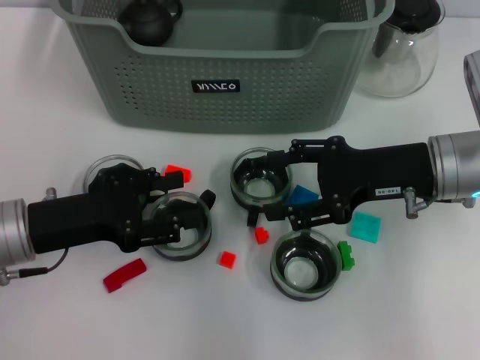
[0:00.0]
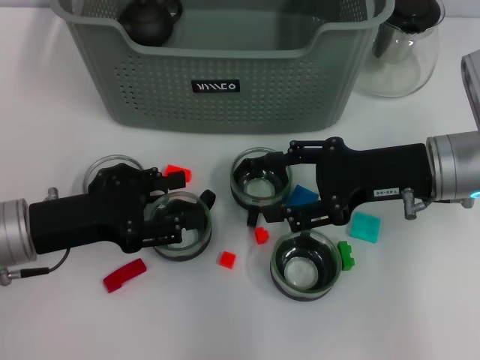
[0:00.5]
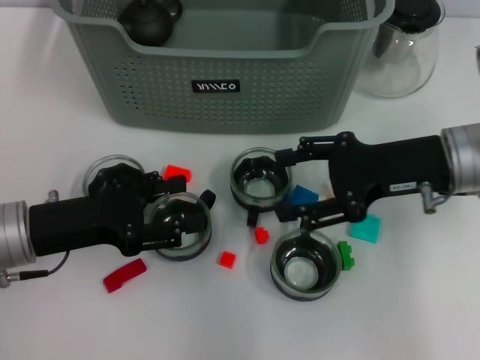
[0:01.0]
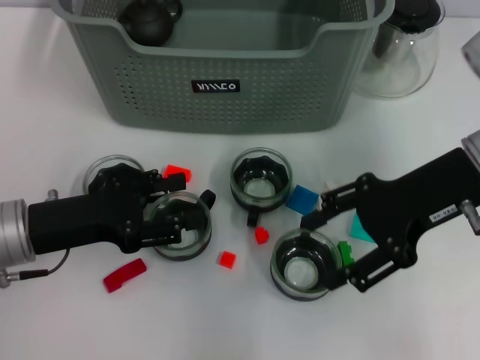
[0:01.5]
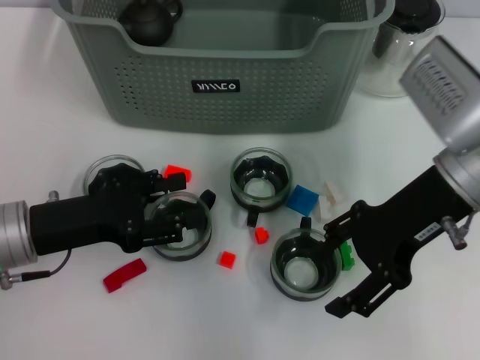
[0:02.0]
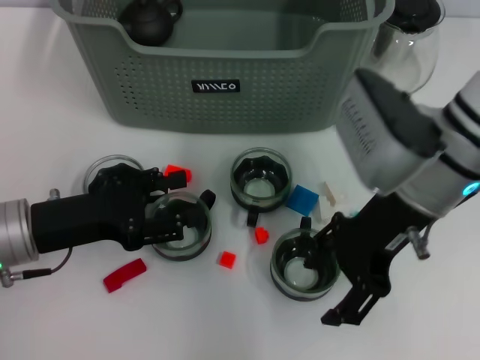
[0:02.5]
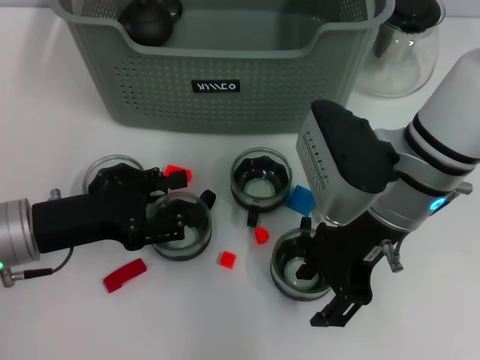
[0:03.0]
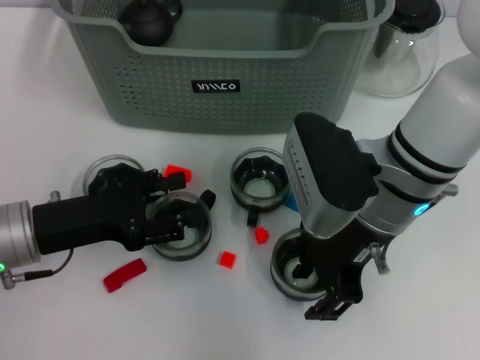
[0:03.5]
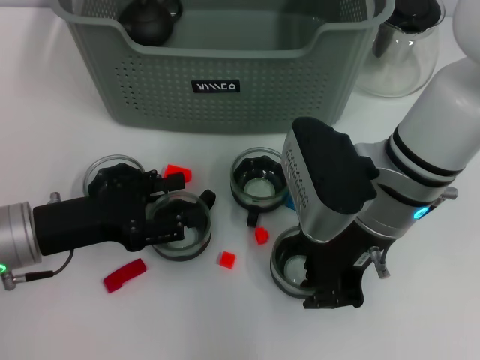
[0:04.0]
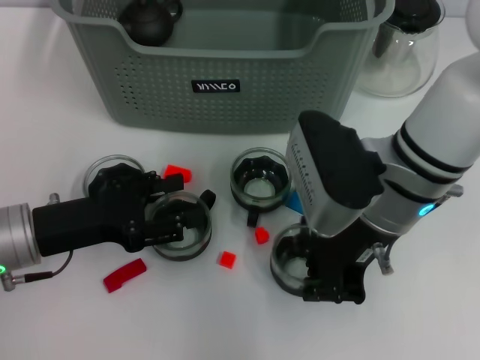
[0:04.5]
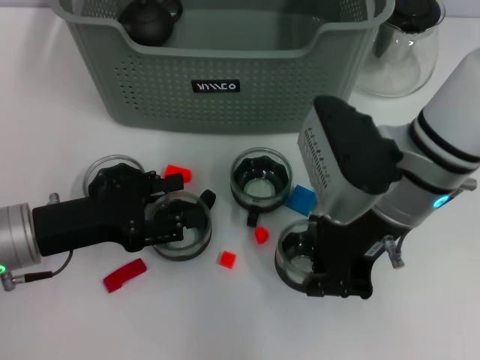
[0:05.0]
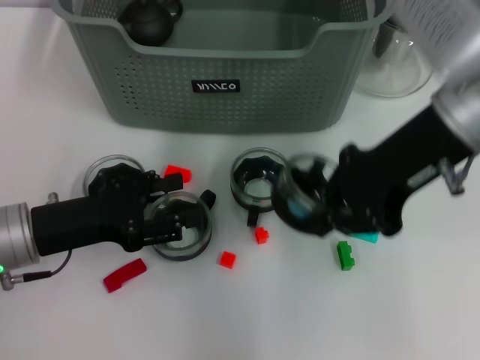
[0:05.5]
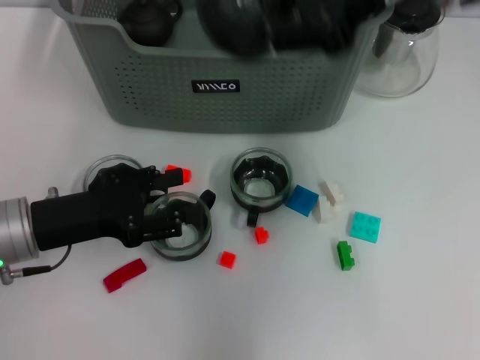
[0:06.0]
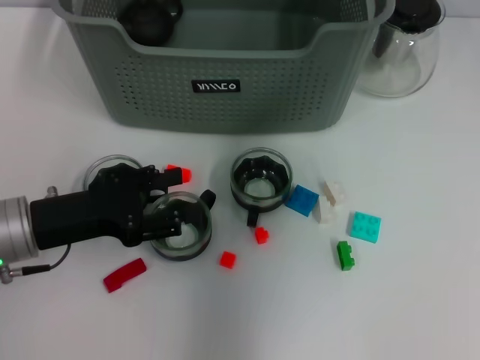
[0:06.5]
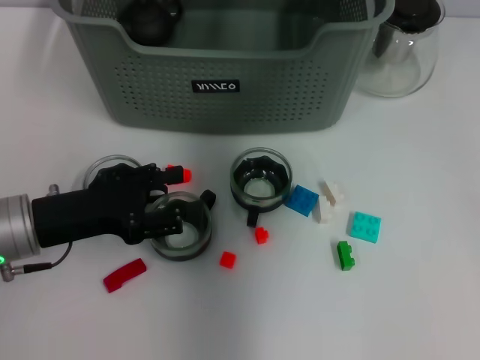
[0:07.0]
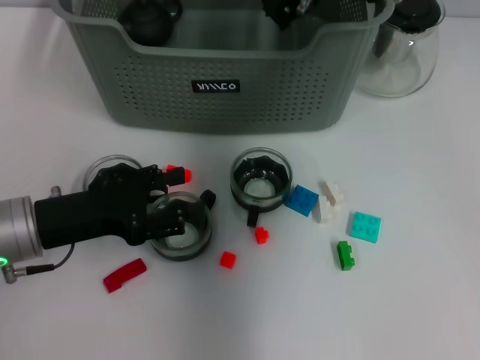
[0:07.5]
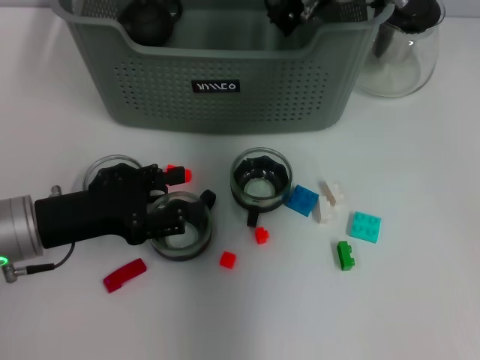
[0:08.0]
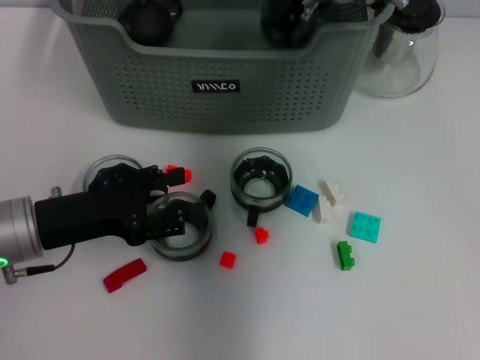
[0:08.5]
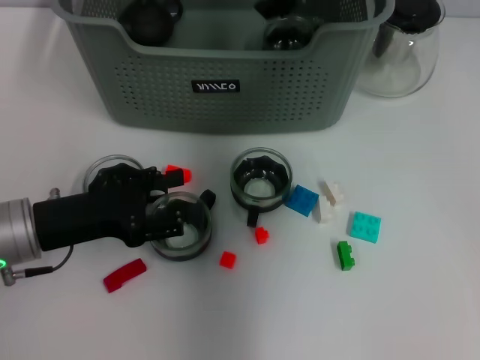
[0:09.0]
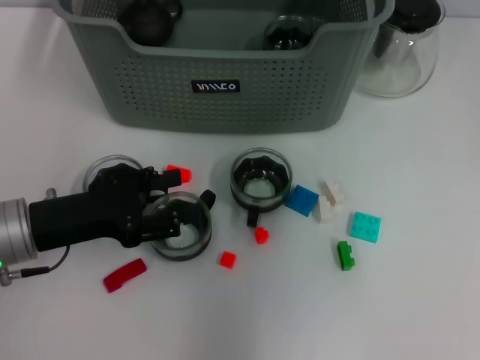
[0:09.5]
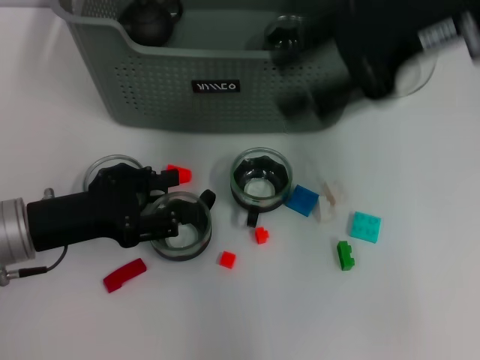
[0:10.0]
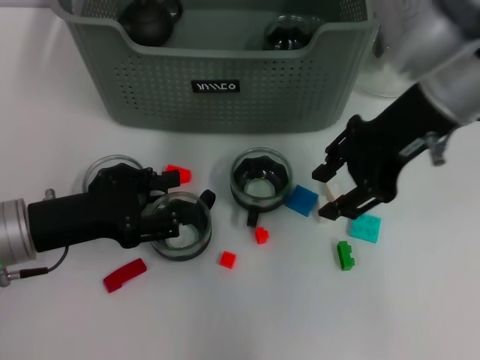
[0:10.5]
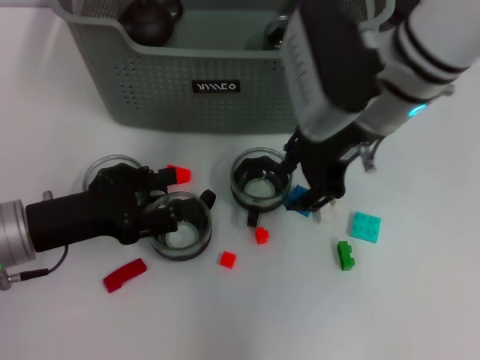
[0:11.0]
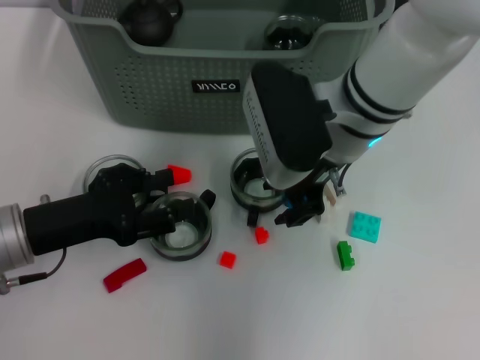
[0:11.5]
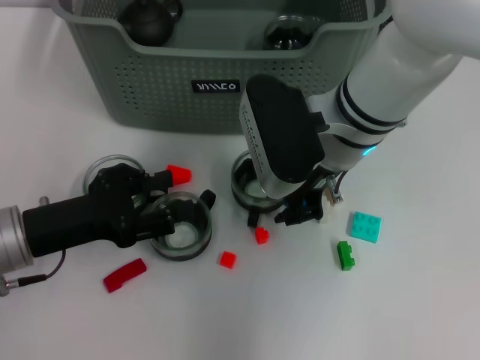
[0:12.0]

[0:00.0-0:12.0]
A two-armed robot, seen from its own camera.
Task of the whole recording: pick up the teacup on the table and place it into the storage bin, pick up the block on the table and place it into the storage bin.
Step, 0.0 to 4.0 s: Grasp the cup with right gripper.
Step, 4.5 to 8.5 s: Place the cup in the storage box with right gripper.
0.0 to 2.0 s: The right gripper is displaced upward by about 5 cm.
2.0 to 4.0 s: The right gripper travels to the left by about 10 cm, and closes.
4.0 to 6.0 s: The right gripper moves upward, about 20 cm.
6.0 to 8.0 s: The right gripper heads downward, forward and to the left, covering some 15 cm.
8.0 to 10.0 s: The right gripper shifts roughly 15 cm backward, to the right and upward, and opens up.
10.0 to 12.0 s: The right gripper shifts roughly 20 cm downward and to the left.

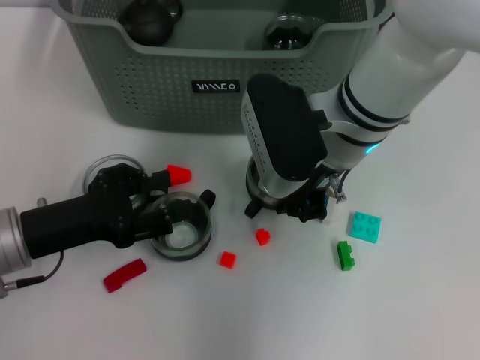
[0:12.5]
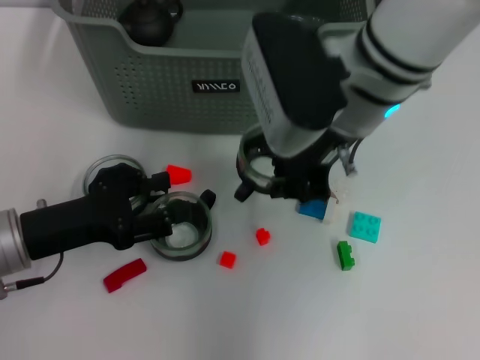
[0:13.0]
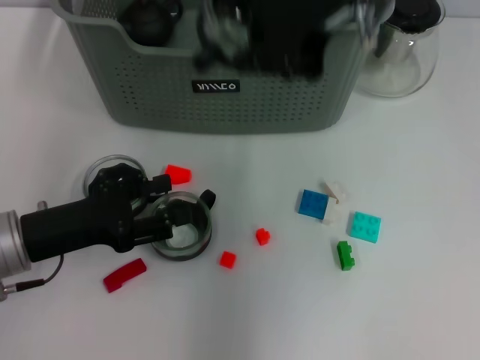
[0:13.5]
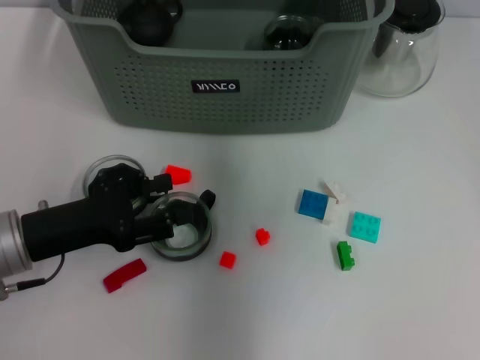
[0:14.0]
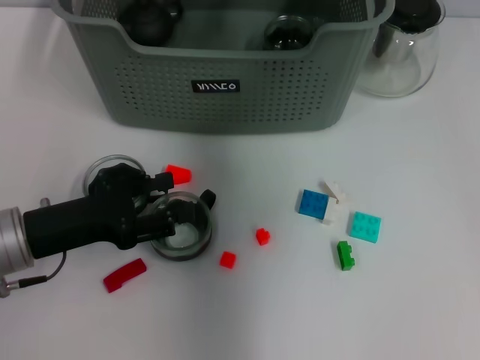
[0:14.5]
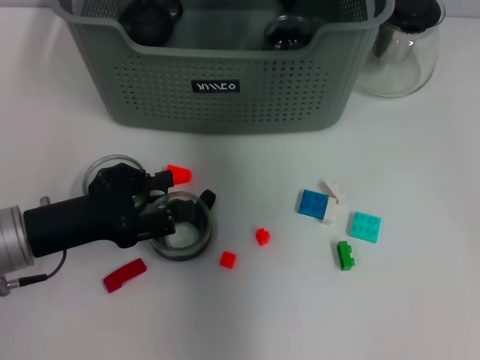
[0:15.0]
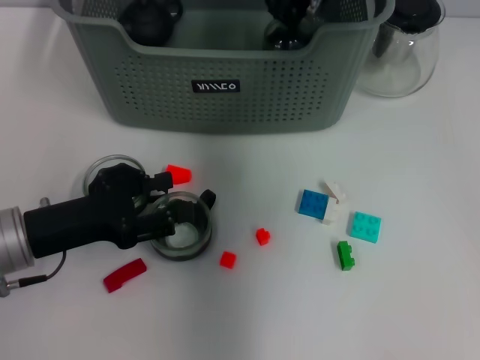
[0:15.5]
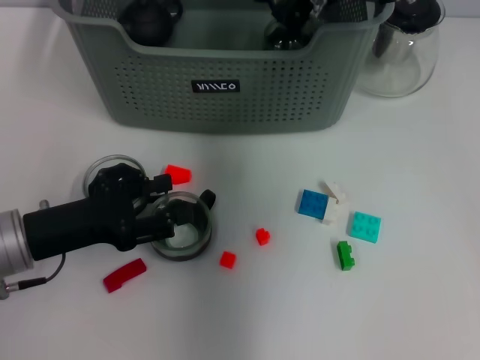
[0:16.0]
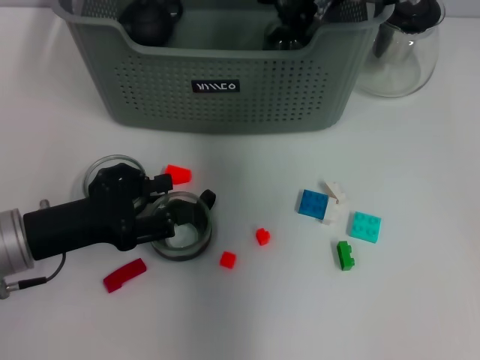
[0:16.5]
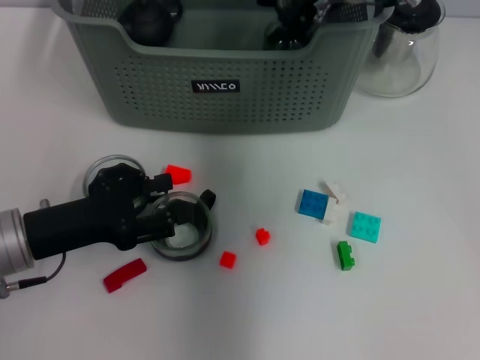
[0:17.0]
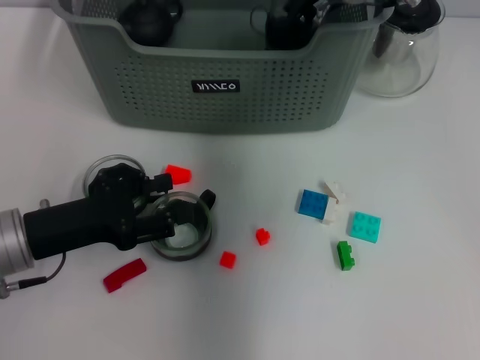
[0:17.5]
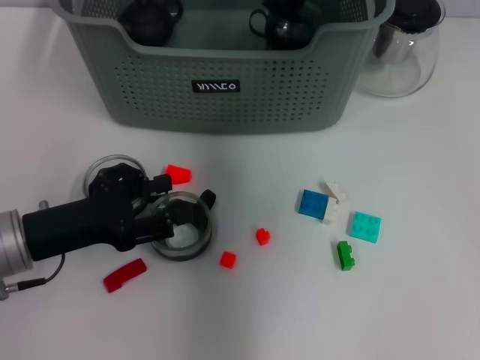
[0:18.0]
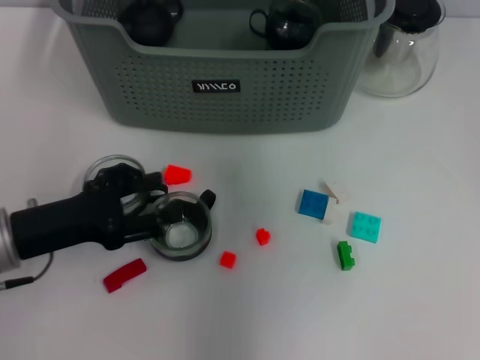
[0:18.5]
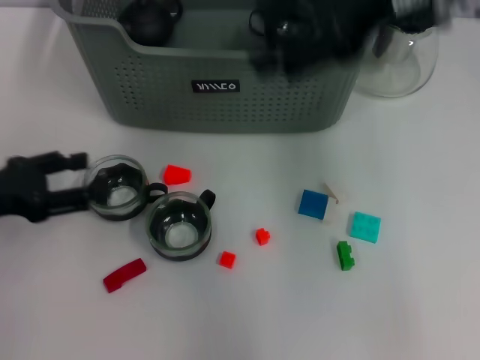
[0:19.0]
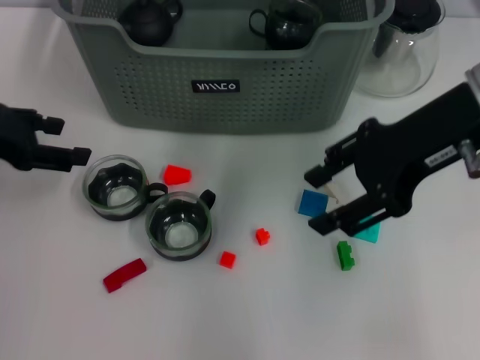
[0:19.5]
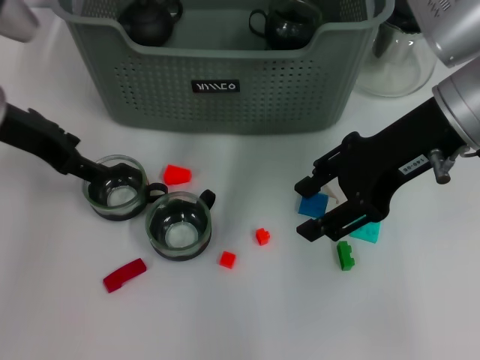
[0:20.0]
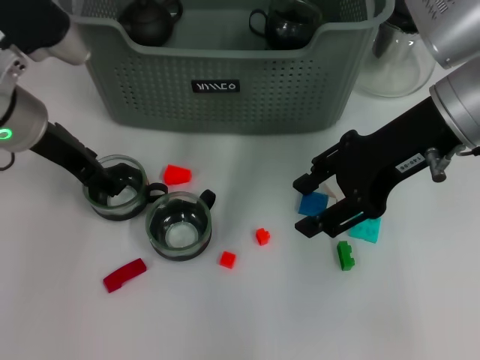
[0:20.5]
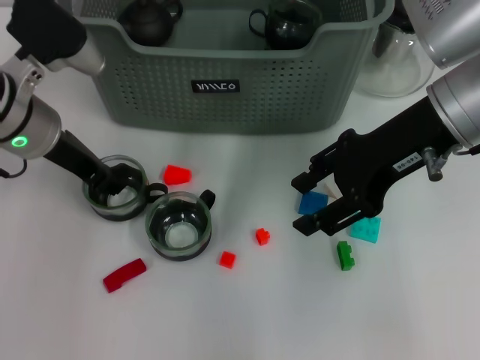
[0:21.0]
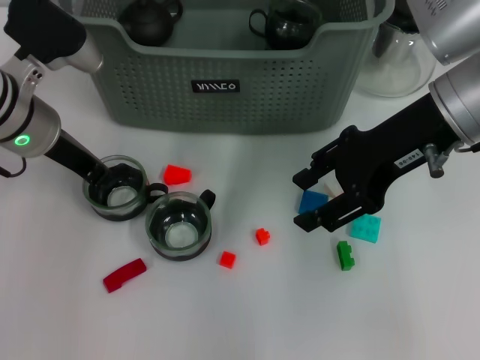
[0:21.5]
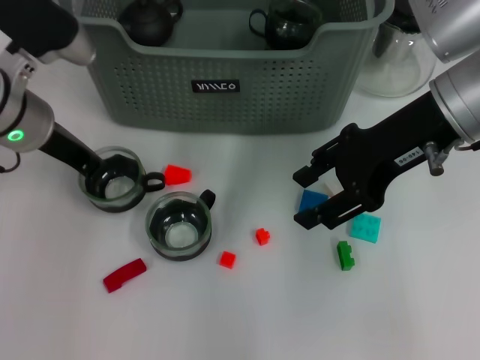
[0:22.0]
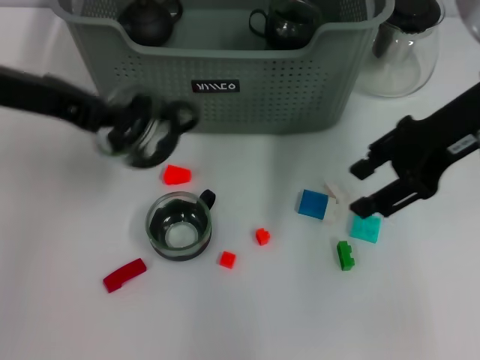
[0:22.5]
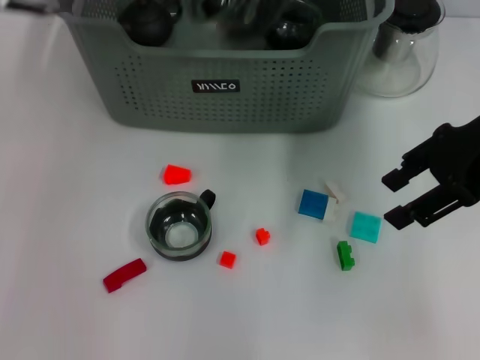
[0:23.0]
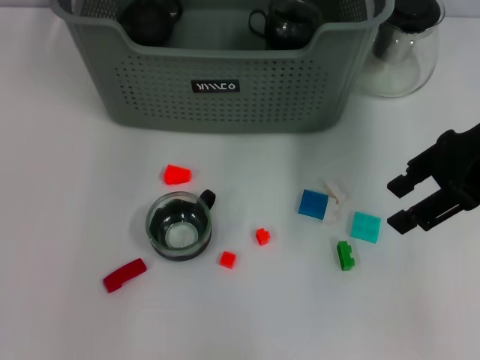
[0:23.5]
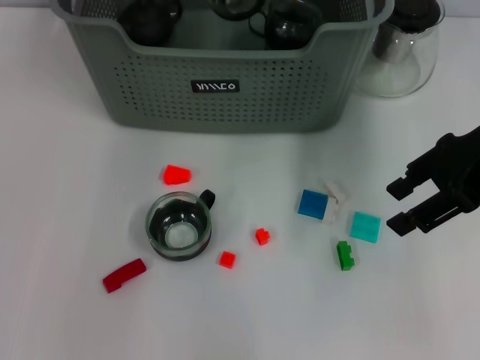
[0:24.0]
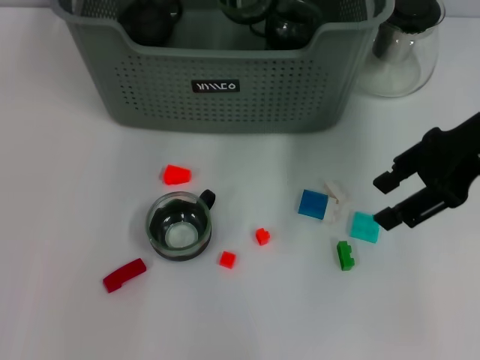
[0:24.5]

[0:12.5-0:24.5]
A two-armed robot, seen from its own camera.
Task of the whole recording: pick up the teacup on the table and place it into the storage bin, pick up the block on the table and place it into the storage bin.
Step, 12.5 to 17.5 s: Place the cup in the storage box with right gripper.
Step, 18.0 to 21.5 s: Grasp the cup with left gripper.
12.5 to 14.5 s: The right gripper is displaced forward and upward by approximately 15 cm.
16.5 to 18.5 s: The right gripper travels upward by some 10 cm, and opens its fingers.
18.5 to 20.5 s: The right gripper is displaced downward, backward and to the right by about 15 cm; the left gripper shifts approximately 15 cm forward and upward.
20.5 to 22.5 s: The left gripper shifts approximately 5 cm upward, and closes.
22.5 to 24.5 s: The left gripper shifts approximately 20 cm forward and to the right.

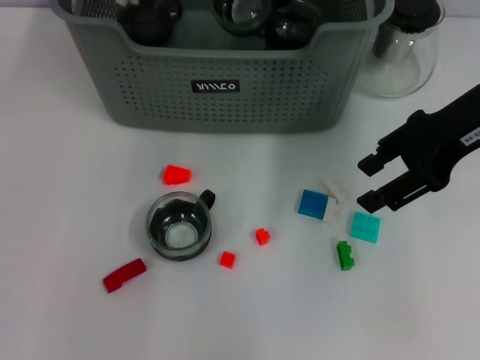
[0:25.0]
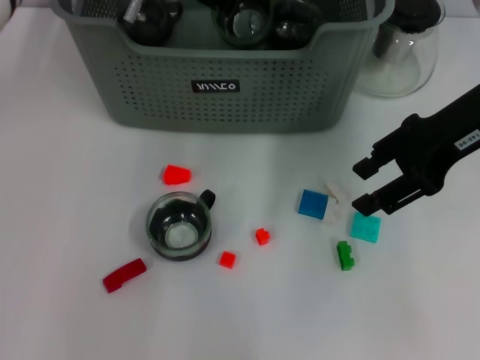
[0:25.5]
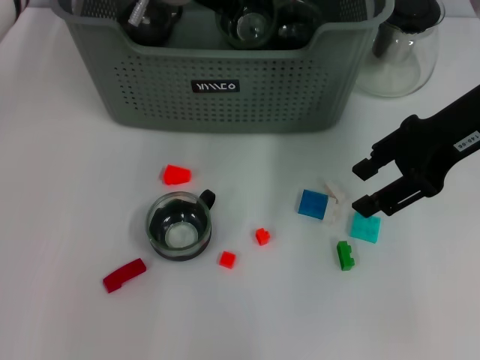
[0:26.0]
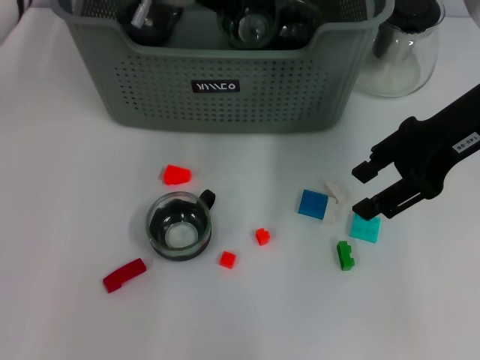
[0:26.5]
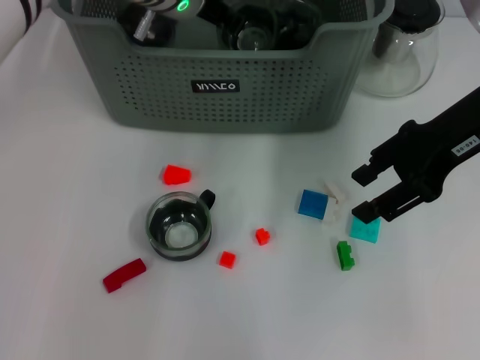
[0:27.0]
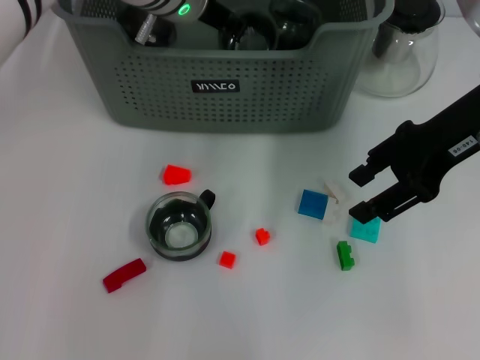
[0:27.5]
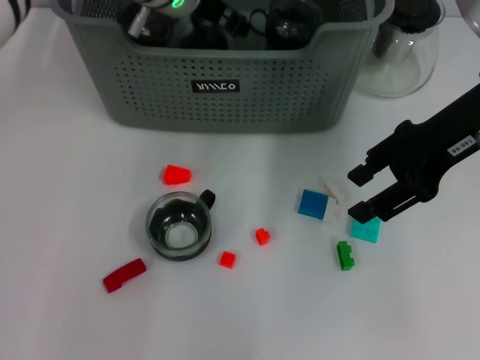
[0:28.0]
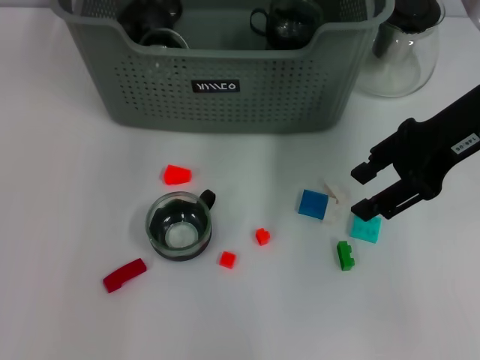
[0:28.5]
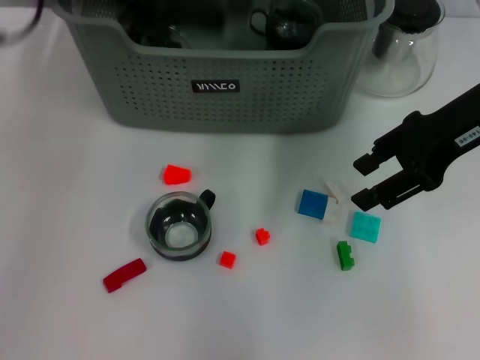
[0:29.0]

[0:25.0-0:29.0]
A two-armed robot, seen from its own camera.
Task of the whole recording: pick up the teacup on the table and place it into the storage bin, pick up the block on the table and place it into the storage bin.
Step, 25.0 to 27.5 s: Place the cup in the storage box with left gripper.
25.0 to 27.0 s: There are only small adjustments of the grippers.
27.0 to 29.0 s: The left gripper goes roughly 25 cm backward, upward and to the left, and opens up.
